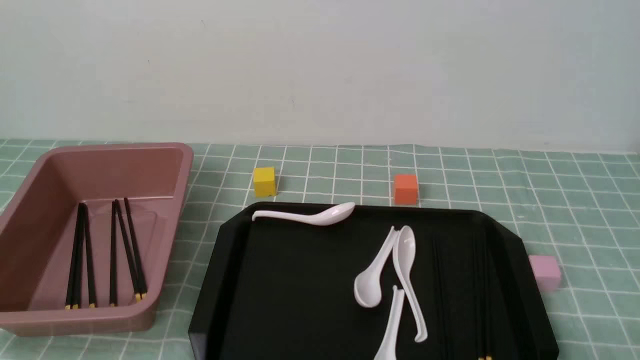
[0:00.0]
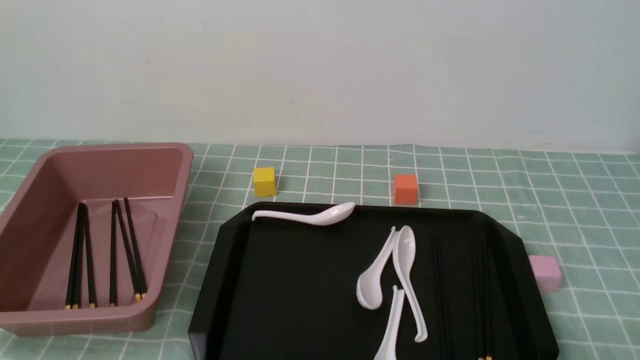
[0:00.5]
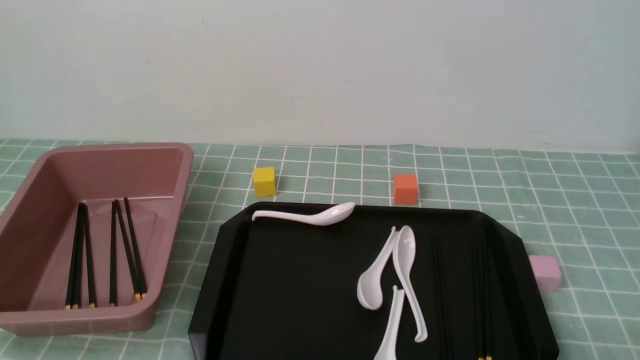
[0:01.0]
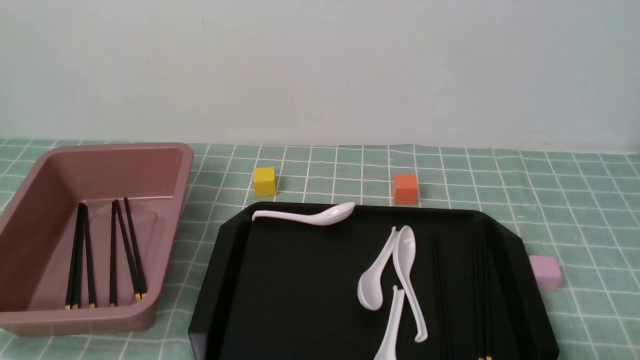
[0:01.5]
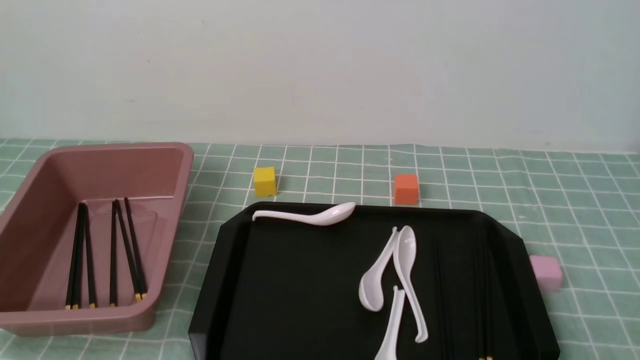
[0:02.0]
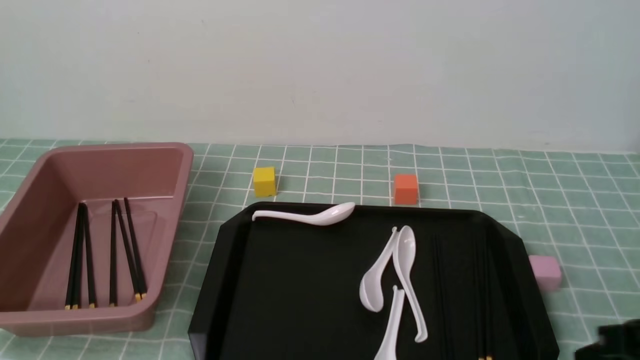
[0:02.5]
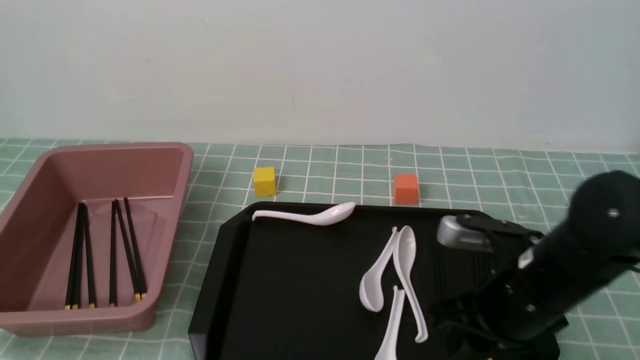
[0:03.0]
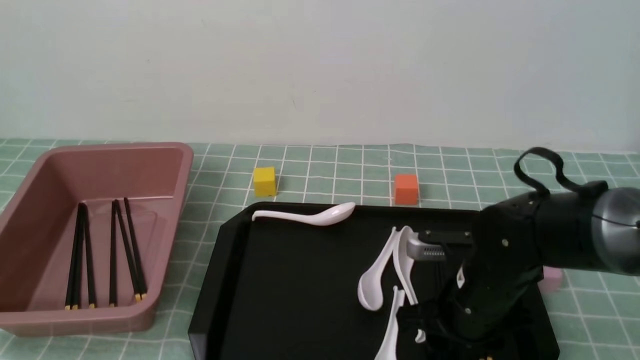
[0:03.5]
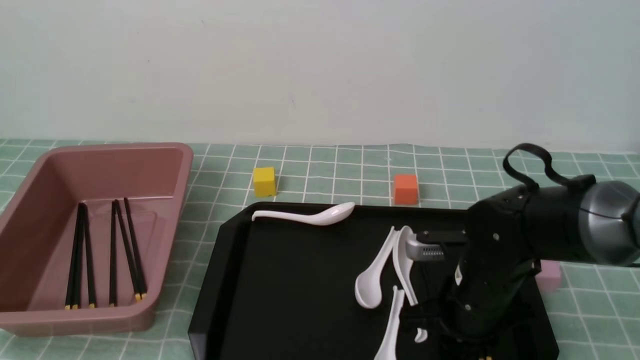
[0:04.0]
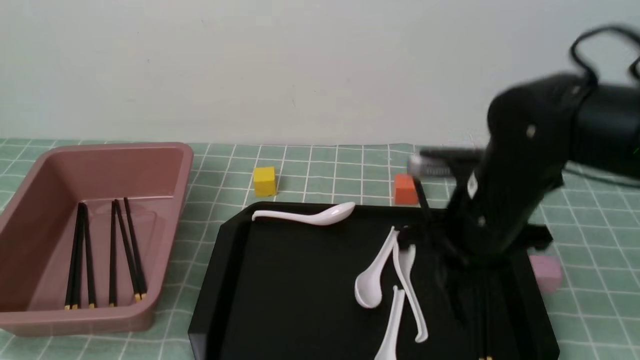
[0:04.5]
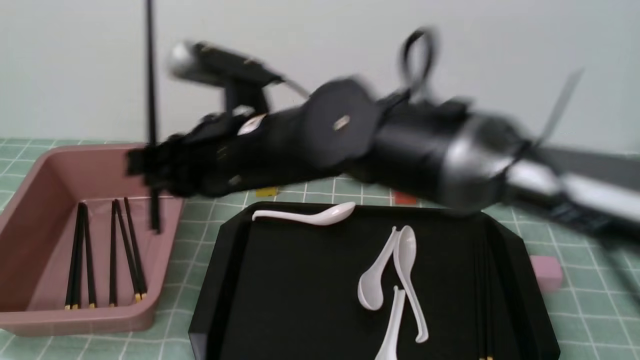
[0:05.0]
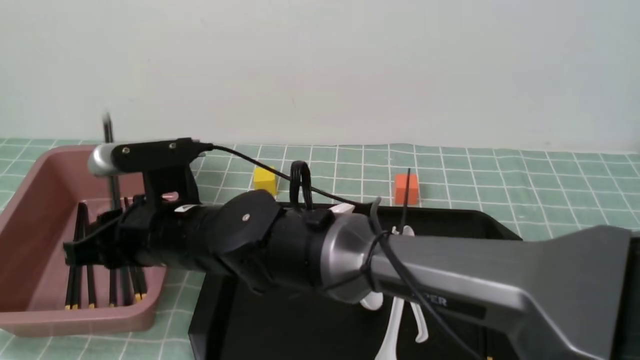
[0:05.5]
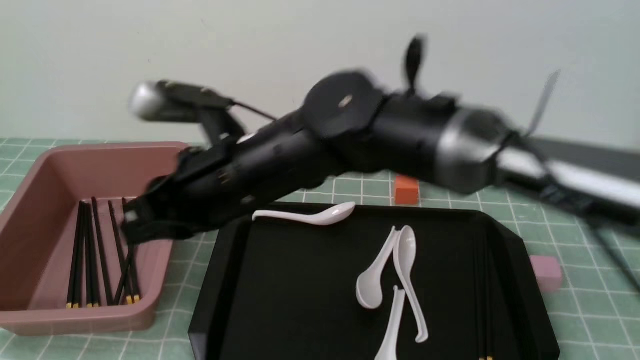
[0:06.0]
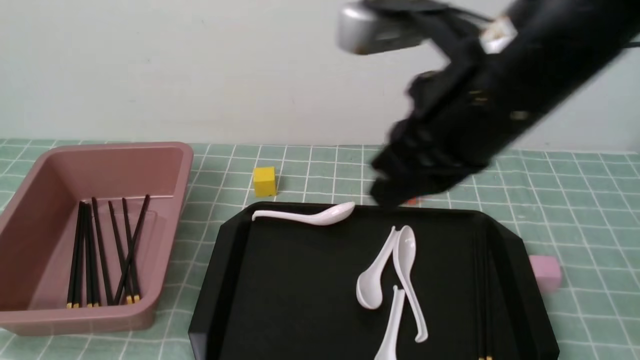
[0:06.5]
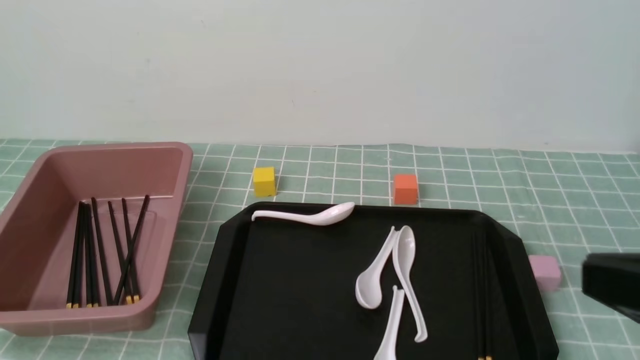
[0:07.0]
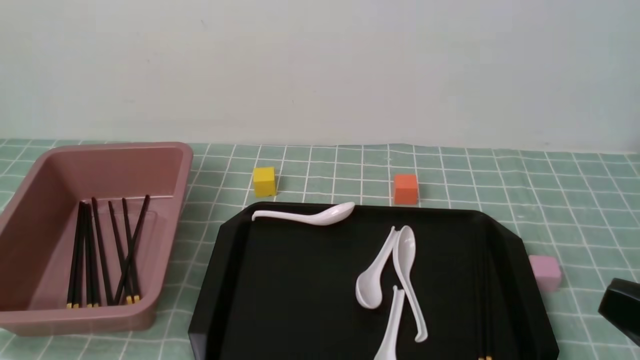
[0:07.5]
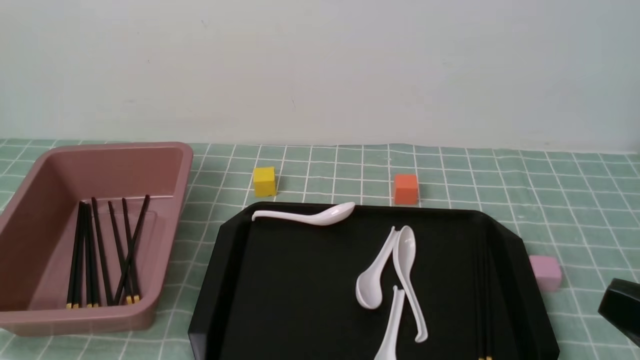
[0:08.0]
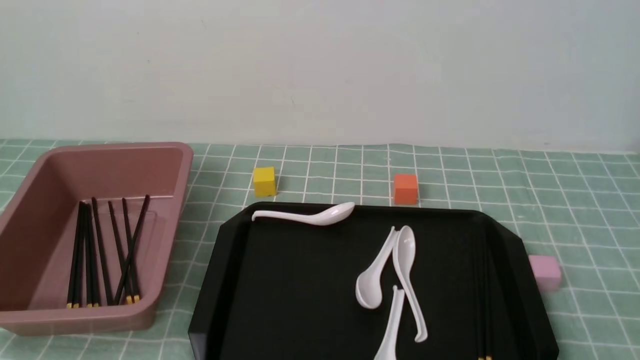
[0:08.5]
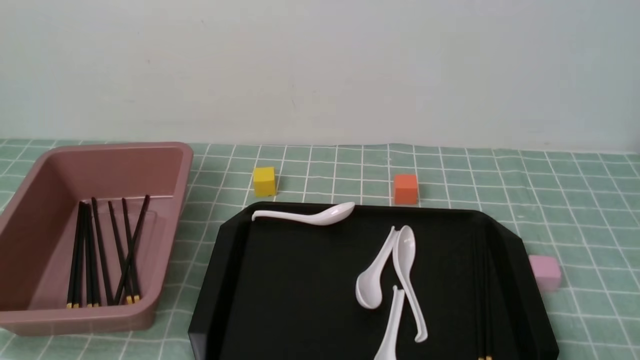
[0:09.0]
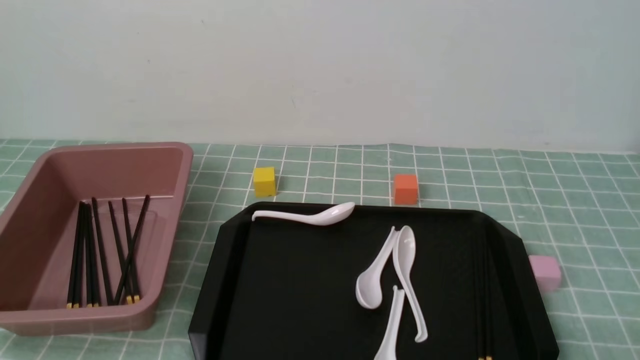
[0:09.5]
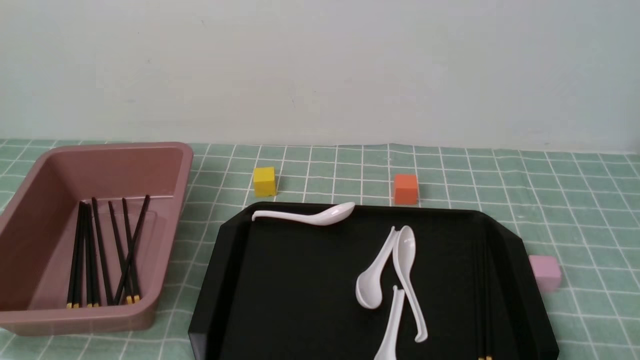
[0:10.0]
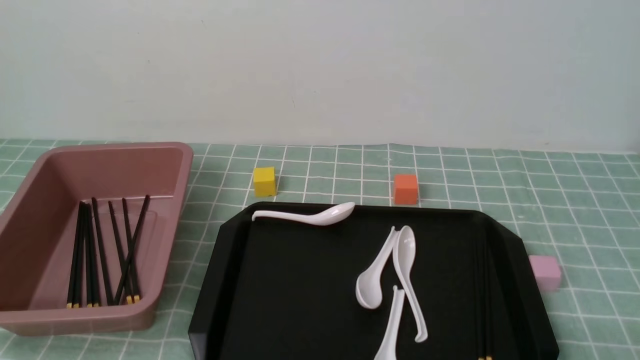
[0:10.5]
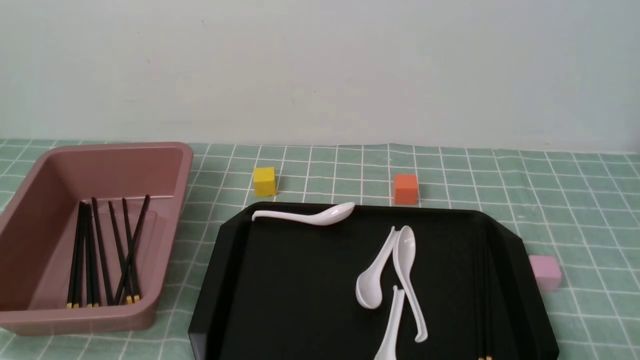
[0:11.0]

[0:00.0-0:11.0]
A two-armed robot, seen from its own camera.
Step, 0:00.0 to 0:04.5: use the right arm to grab a pair of chopsticks.
Step, 0:05.0 to 0:05.5: use the right arm to put the chopsticks into the lunch box.
0:00.0 to 0:02.0: The right gripper goes roughly 5 cm upward, and closes.
0:02.0 to 0:03.5: The right gripper shifts some 25 cm forward and to the left, and opens its fingers.
0:03.5 to 0:05.5: The right gripper shifts some 25 cm to the left, and closes, then reopens.
0:05.5 to 0:07.5: The right gripper moves to the right and backward, approximately 40 cm, and closes.
0:07.5 to 0:09.0: The right gripper is displaced downward and to the right by some 15 cm.
